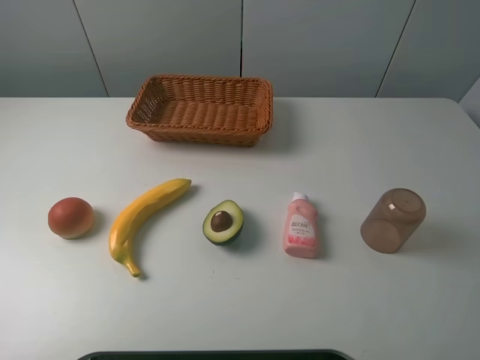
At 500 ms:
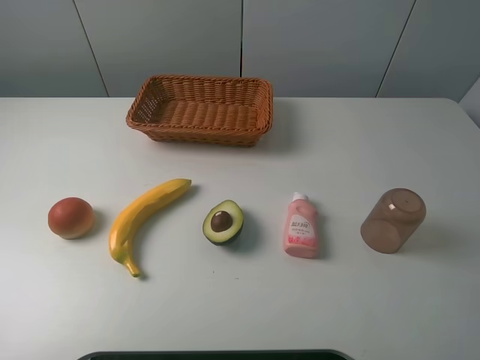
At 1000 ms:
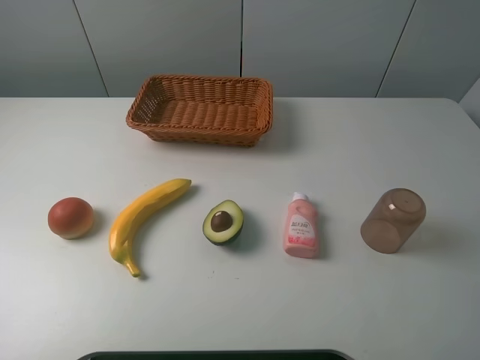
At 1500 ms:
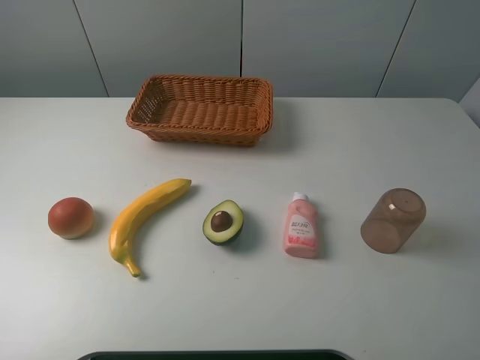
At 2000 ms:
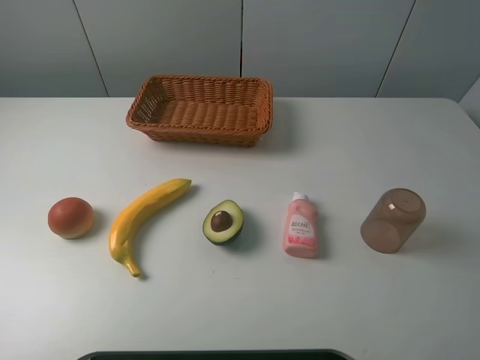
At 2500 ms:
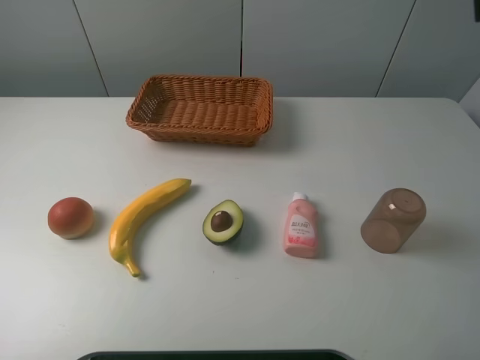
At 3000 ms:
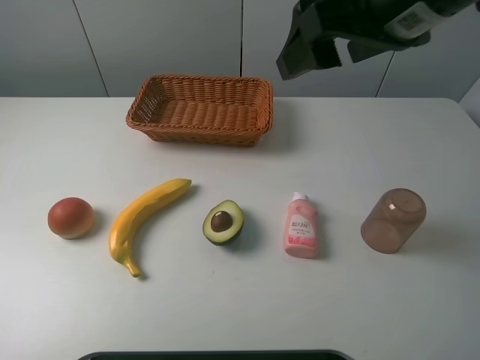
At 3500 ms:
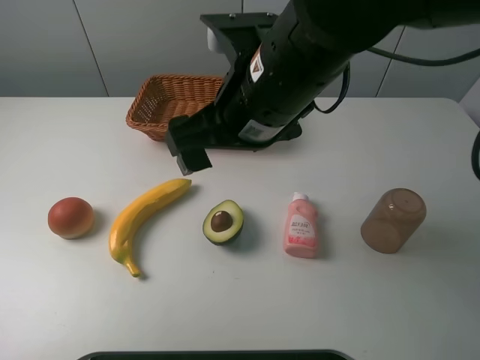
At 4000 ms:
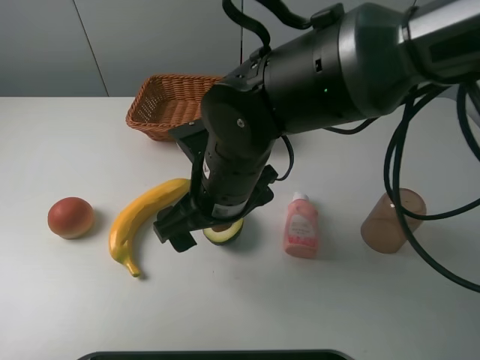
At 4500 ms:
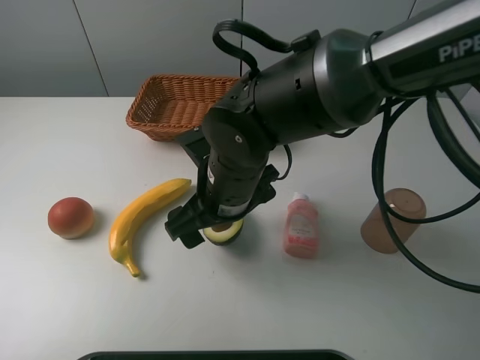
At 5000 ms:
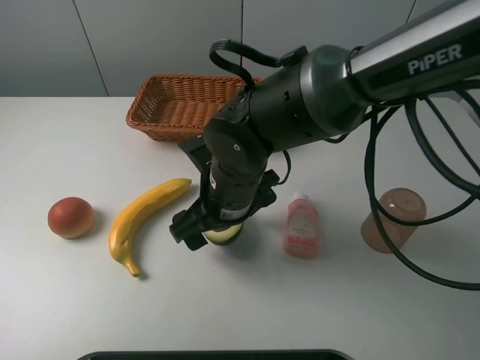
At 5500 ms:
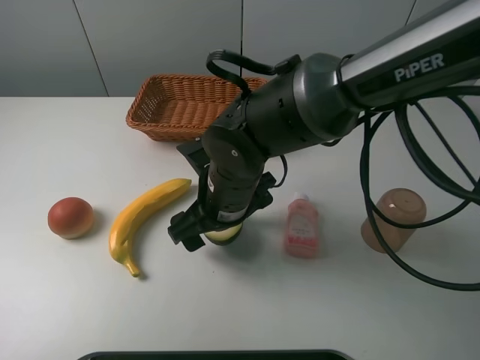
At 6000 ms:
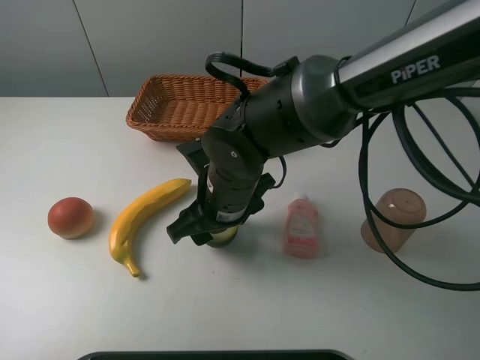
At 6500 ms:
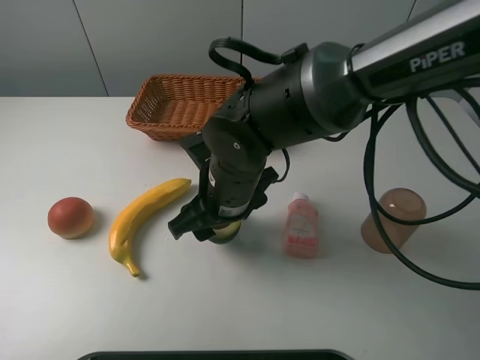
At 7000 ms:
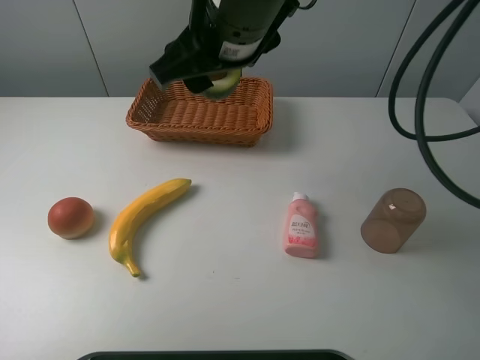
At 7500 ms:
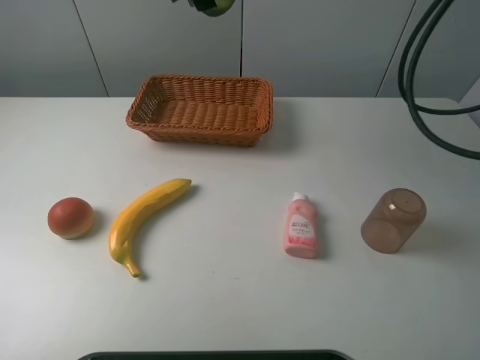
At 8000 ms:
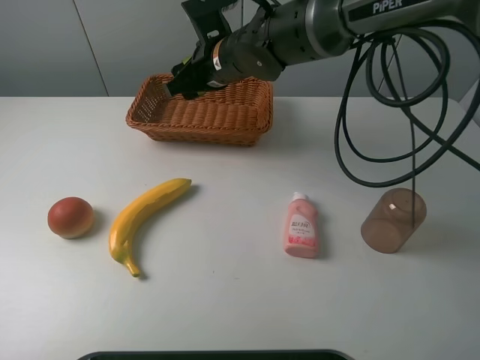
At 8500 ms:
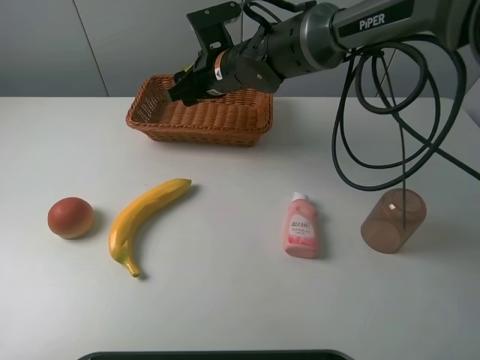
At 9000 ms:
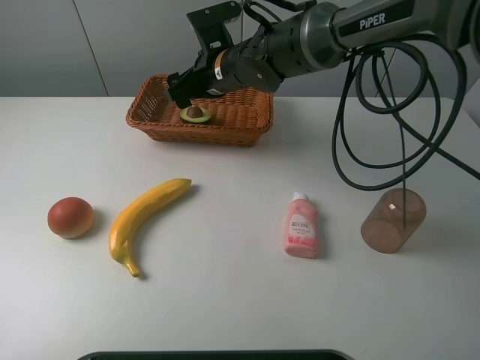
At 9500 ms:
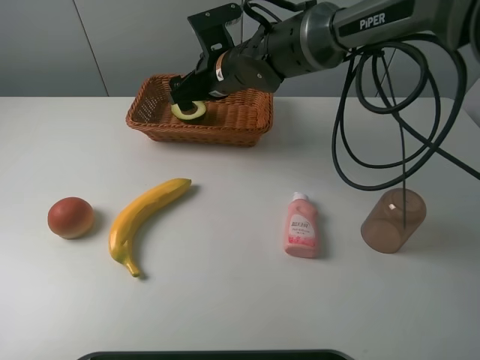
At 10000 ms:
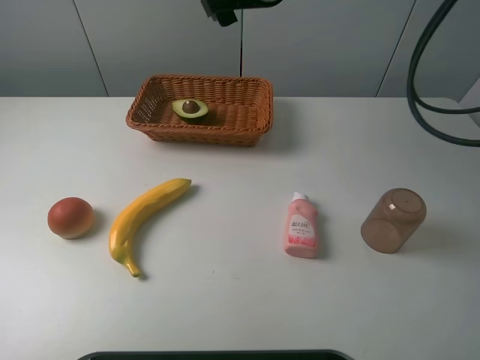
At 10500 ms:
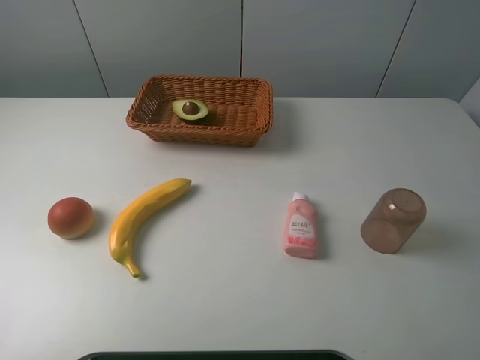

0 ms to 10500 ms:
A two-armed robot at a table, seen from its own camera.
Task of the whole recording: randomly pick up an item from the table and put it in the basket.
Step, 0 ms to 6000 ms: Grasp the avocado with the right gripper.
Step, 6500 ms to 9500 ms: Place the avocado into the basket with the right gripper.
2000 ms to 4000 ms: The right gripper goes roughly 40 cm to the left, forward and downward.
4000 ms to 6500 ms: The right gripper closes.
6500 ms to 8500 ms: The right gripper travels forward by some 15 cm, and moves about 20 cm upward and comes back.
8500 ms to 10500 ms: The right gripper shifts roughly 40 cm upward, to the right and backward, and opens its fingers.
